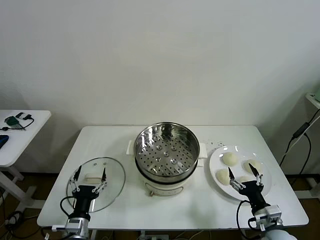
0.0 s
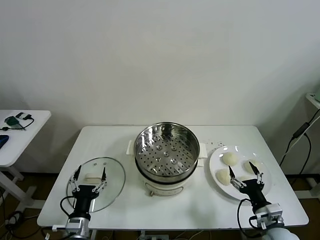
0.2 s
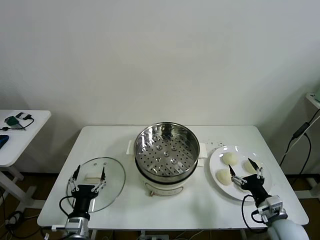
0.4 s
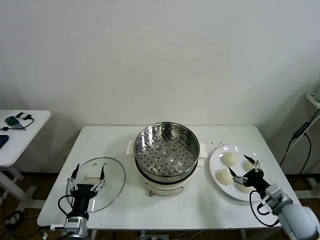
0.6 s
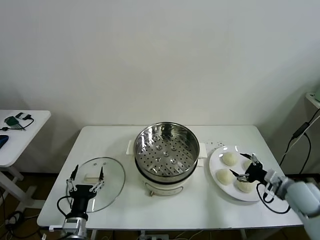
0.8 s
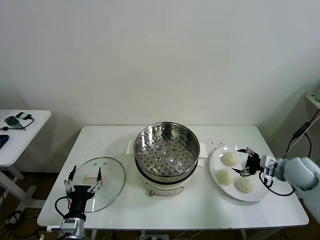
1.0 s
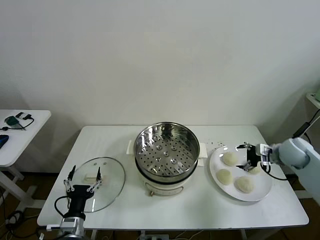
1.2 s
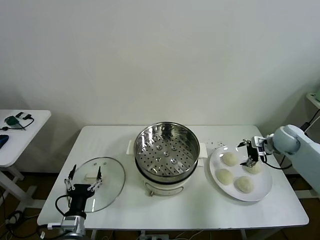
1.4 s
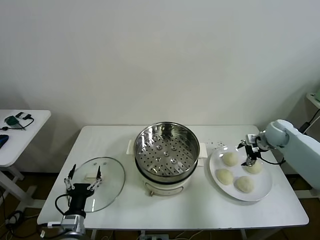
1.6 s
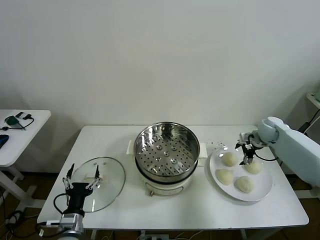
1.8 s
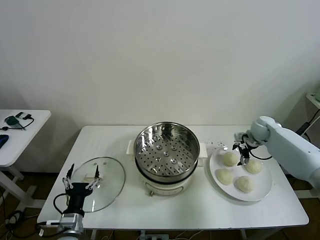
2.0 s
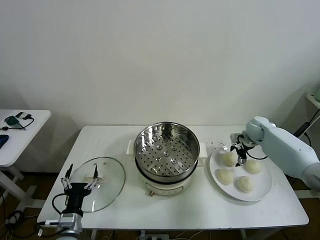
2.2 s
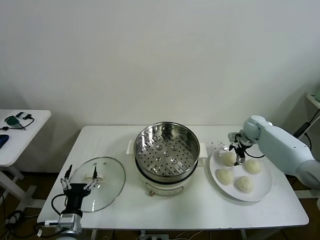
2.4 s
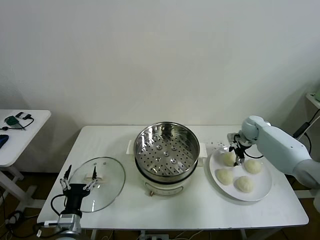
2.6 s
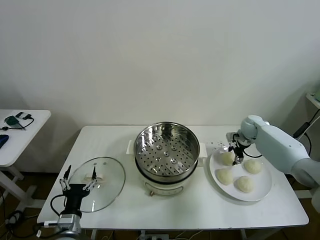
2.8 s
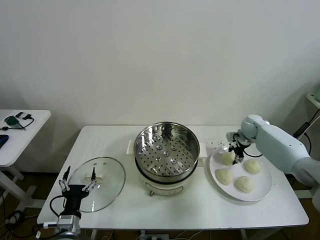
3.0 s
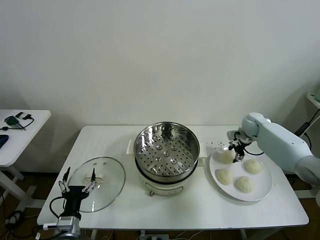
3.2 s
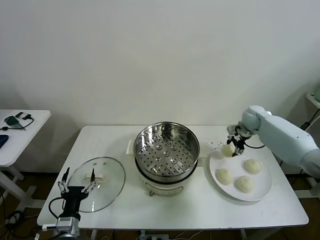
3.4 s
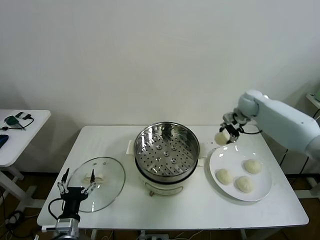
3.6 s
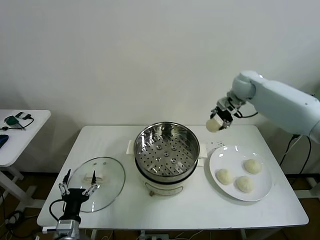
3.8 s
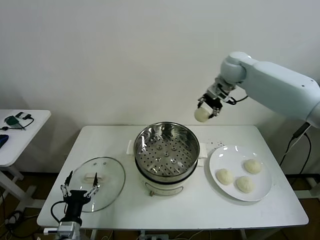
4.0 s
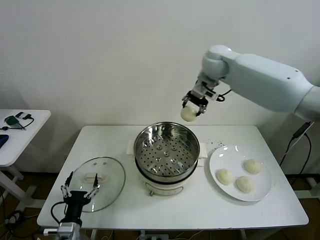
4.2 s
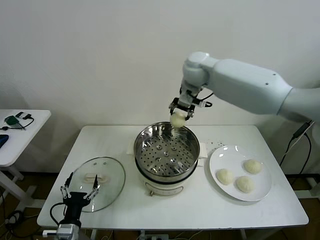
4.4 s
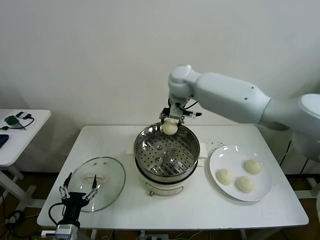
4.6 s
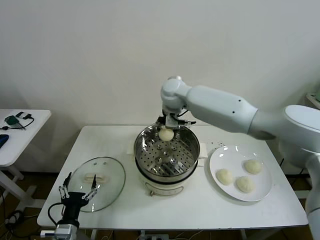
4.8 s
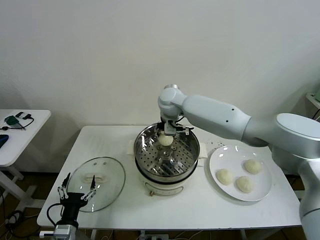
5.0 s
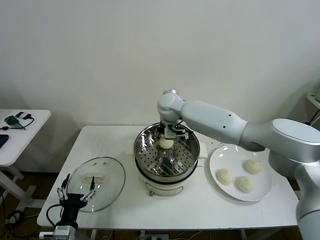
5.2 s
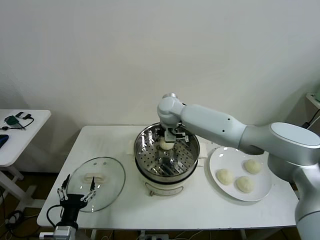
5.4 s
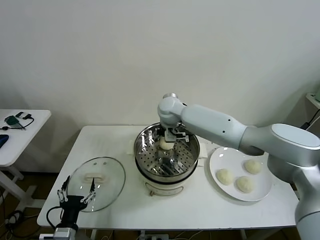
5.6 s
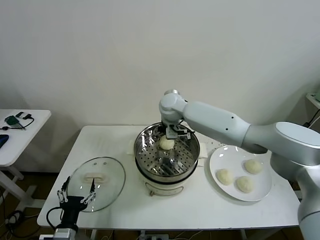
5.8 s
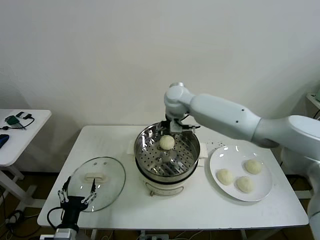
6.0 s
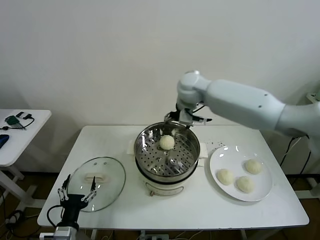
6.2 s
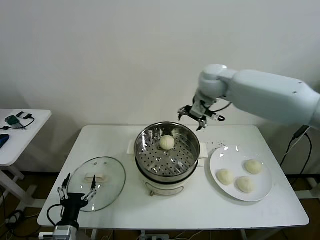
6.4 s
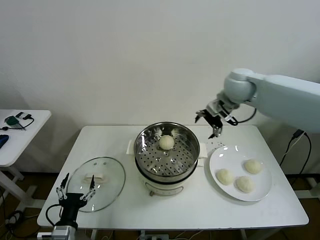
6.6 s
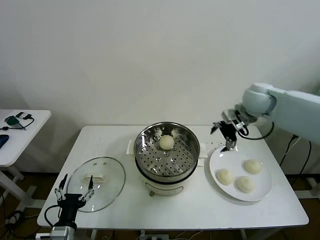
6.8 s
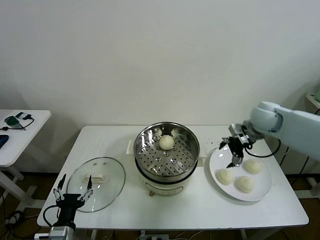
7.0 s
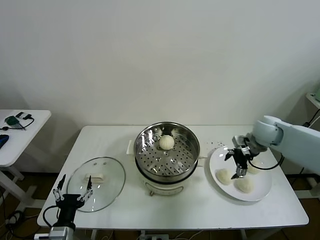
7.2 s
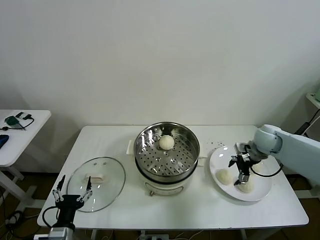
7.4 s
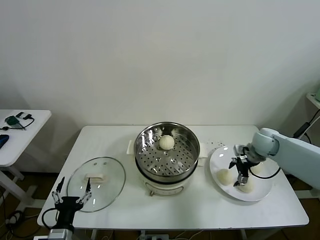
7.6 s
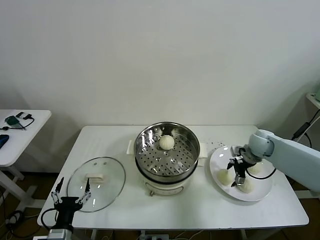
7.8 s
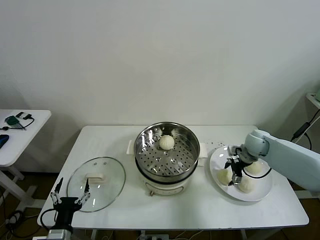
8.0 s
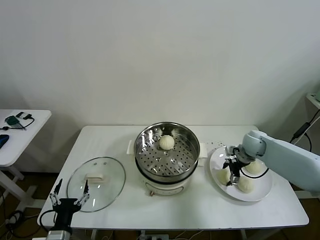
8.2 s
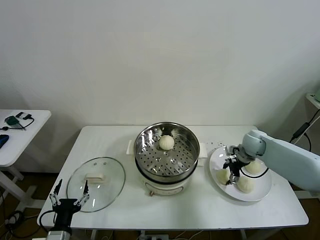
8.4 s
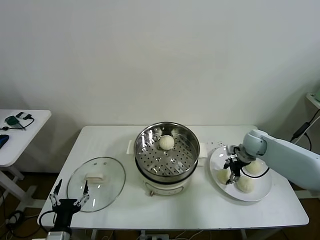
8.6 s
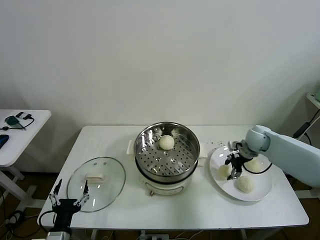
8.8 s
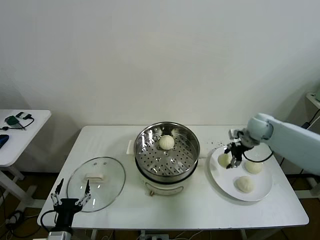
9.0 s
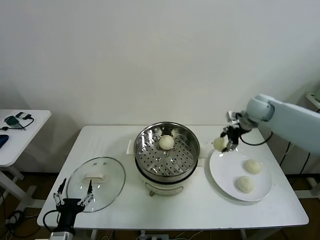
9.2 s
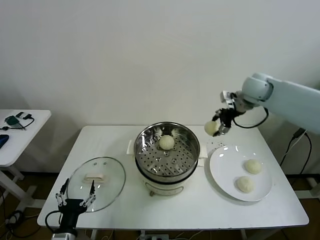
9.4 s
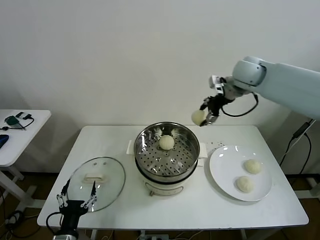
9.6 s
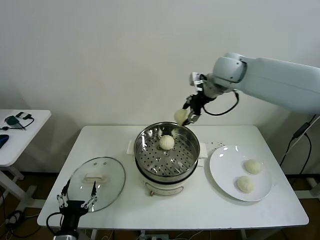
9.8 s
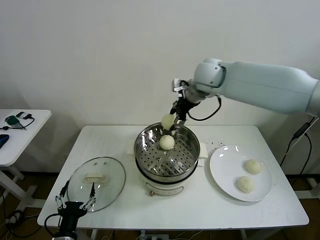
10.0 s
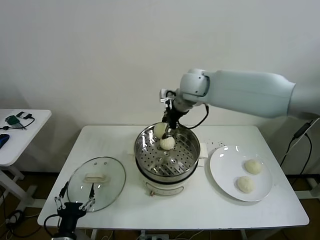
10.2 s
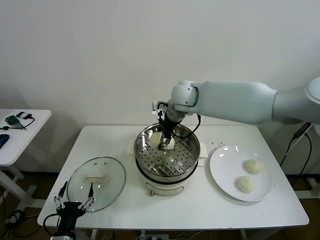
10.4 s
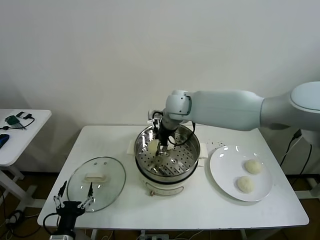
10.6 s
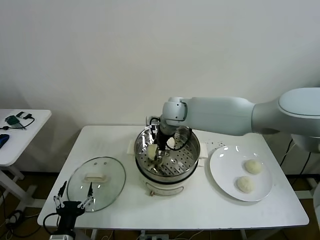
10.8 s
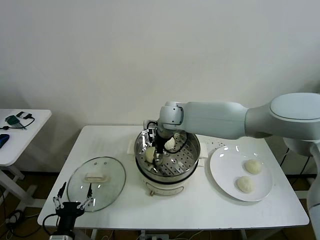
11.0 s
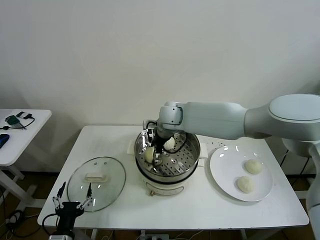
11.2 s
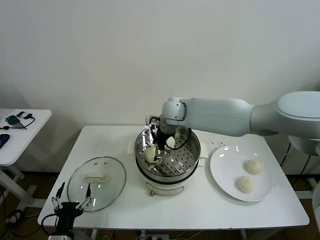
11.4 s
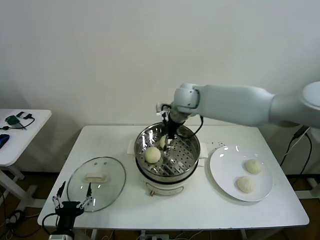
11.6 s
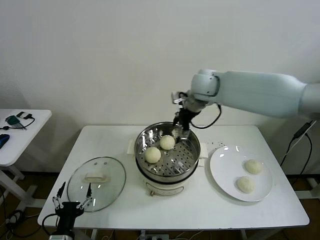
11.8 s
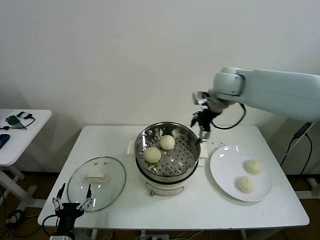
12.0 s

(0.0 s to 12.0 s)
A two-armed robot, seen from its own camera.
Task of the whole recording: take steamed baozi put them in steamer then cover it.
Step, 0.0 s - 2.8 s: Grasp the baozi in the plate with right gripper.
Step, 3.0 s - 5.4 s: Place the baozi on the steamer with right gripper.
Step, 5.6 s - 8.4 s: Grasp the baozi in the plate with right gripper.
Step, 8.6 s - 11.2 s: Place the baozi on the steamer with right gripper.
1.6 s - 3.0 s: The right gripper is displaced forward by approximately 5 cm, and closes.
3.0 s - 4.4 s: The right gripper moves to the left and upward, some 40 cm.
4.4 s - 6.0 s: The right gripper travels downward by roughly 5 cm, and opens its fingers.
6.0 s - 7.6 s: The right gripper travels to the right and downward by some 35 cm.
7.6 s - 9.0 s: The right gripper shifts roughly 5 cm upward, and closes up.
9.0 s - 10.4 s: The right gripper shifts roughly 30 cm to the left.
10.4 s - 12.0 s: The right gripper moves to the right, roughly 15 cm, and opens its fingers.

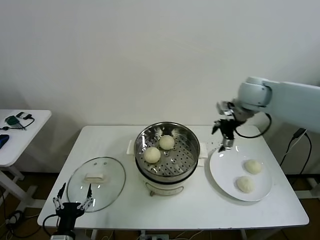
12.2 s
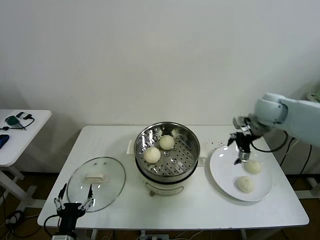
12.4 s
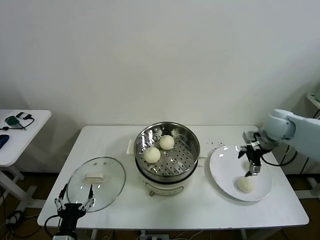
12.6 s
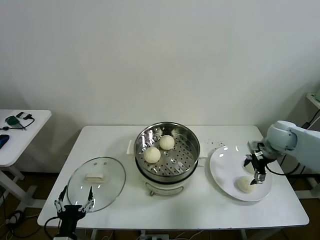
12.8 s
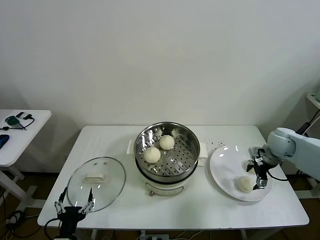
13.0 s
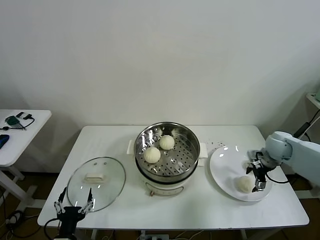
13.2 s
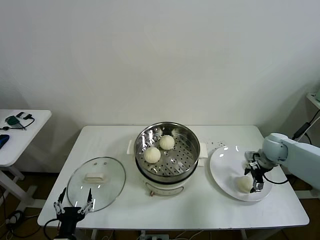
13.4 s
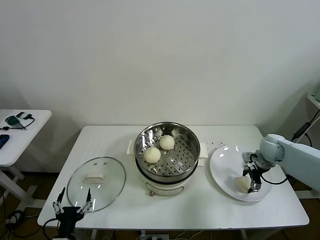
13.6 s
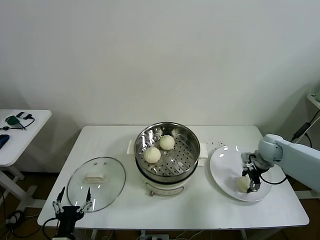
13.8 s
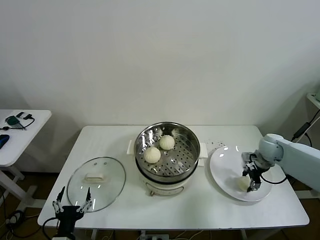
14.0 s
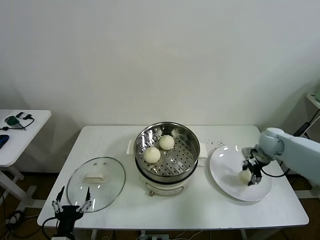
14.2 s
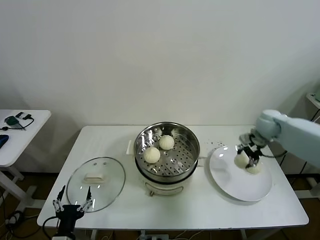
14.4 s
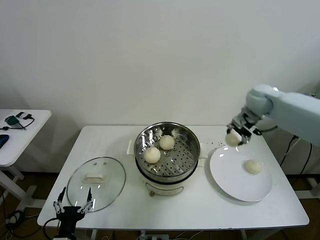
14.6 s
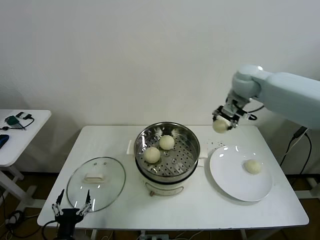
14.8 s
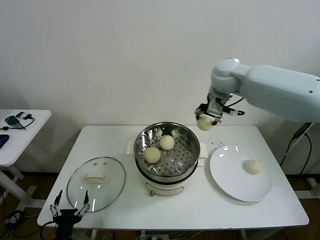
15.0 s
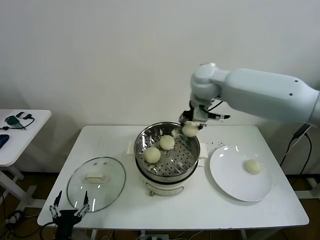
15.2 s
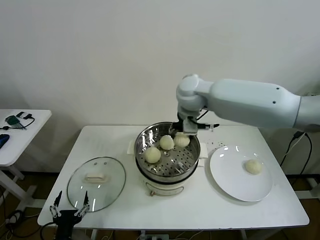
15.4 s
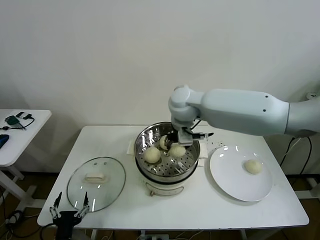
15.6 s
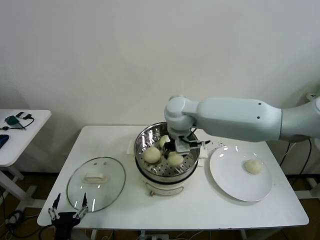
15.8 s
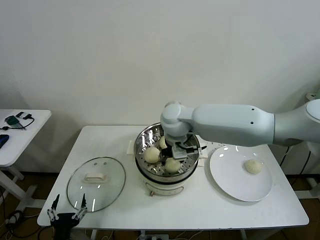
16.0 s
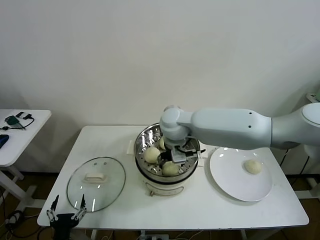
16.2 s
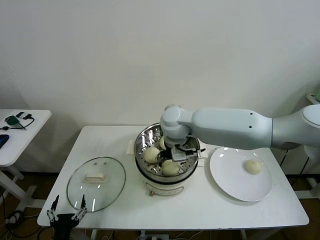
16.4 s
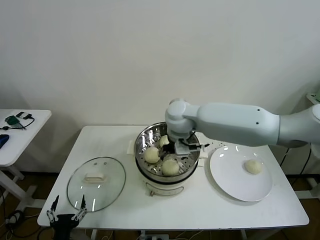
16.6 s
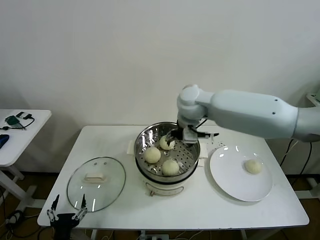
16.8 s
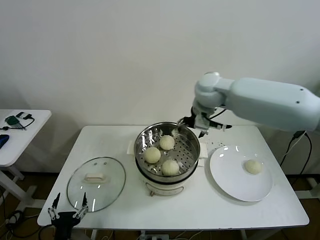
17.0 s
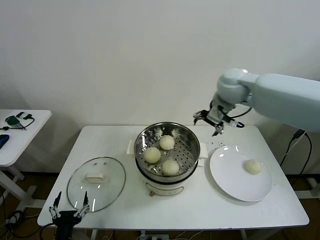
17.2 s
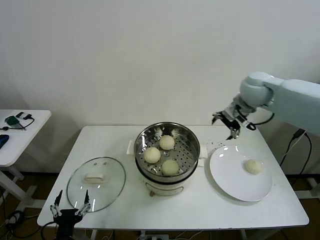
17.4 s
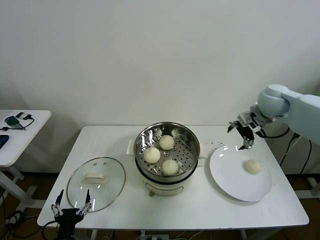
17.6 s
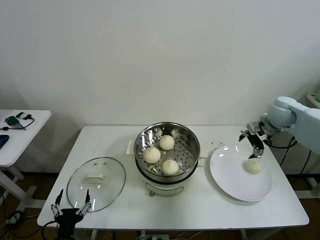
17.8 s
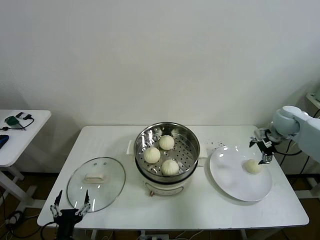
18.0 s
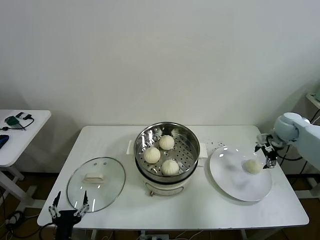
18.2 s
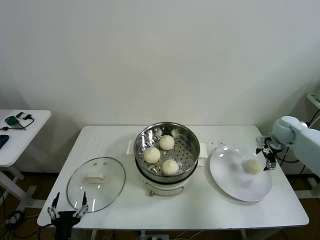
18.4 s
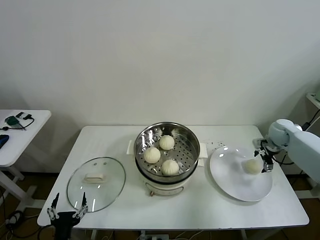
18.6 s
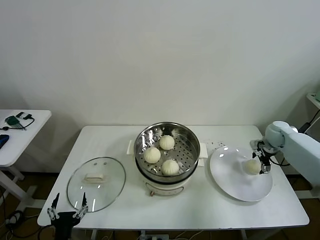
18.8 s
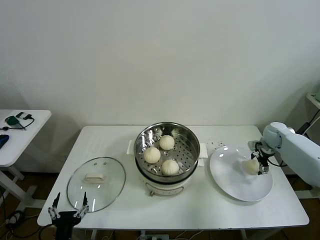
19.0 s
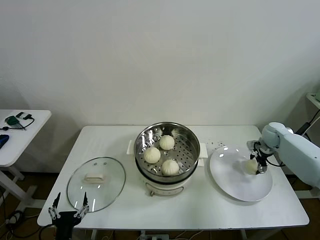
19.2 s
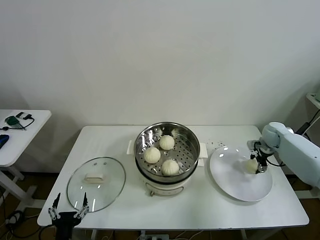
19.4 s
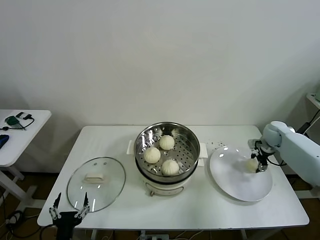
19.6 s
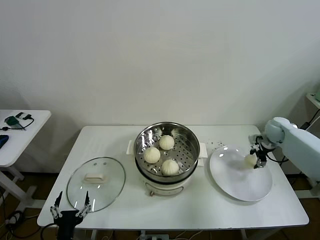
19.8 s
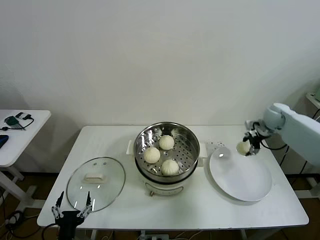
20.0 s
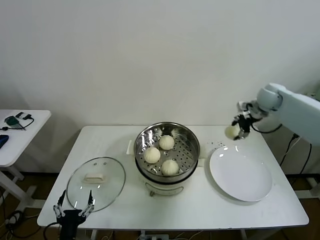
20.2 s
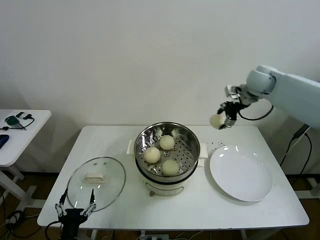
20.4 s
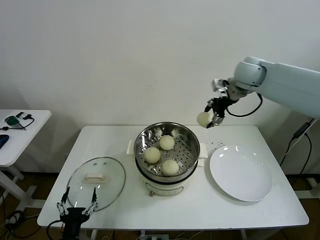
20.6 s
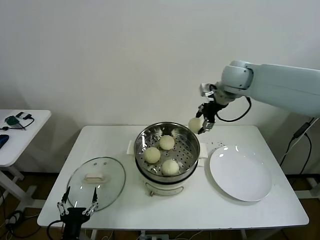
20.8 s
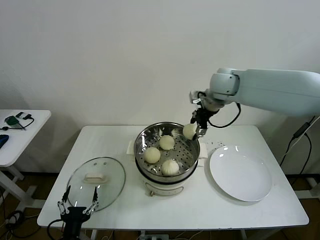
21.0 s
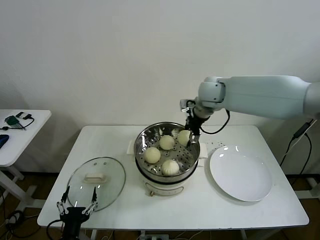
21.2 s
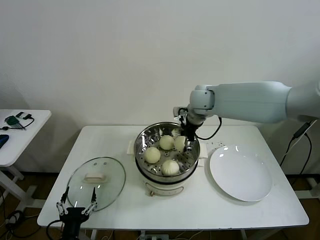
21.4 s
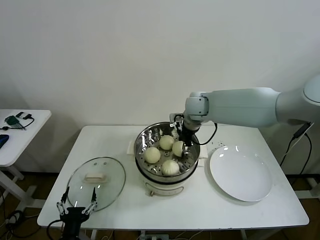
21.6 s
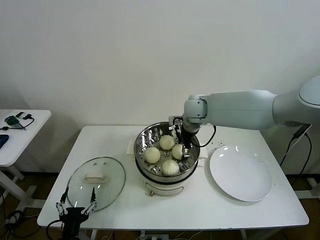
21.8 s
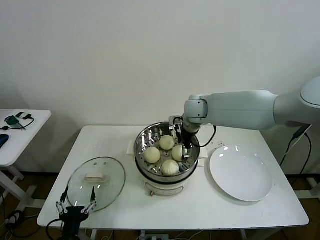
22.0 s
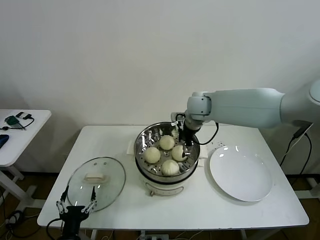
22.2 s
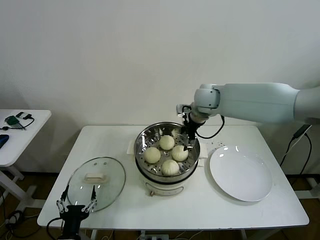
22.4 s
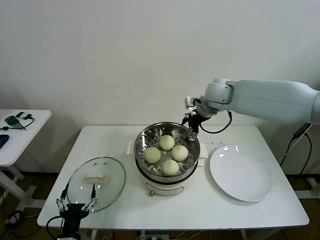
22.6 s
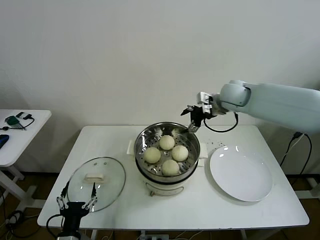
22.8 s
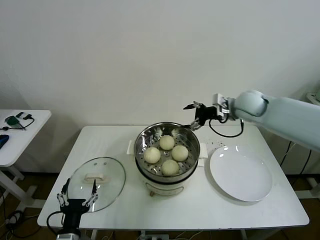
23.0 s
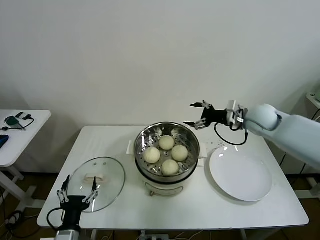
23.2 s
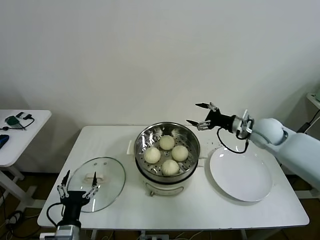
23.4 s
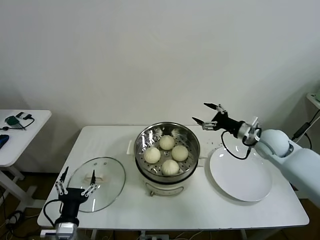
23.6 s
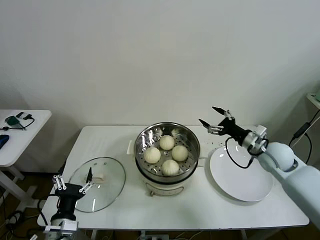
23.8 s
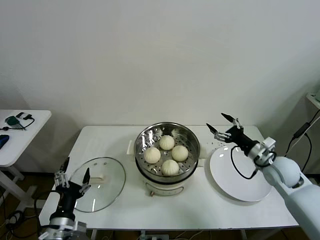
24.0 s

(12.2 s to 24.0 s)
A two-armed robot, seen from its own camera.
Task of the whole recording: take steamed baozi put them in steamer then cover it.
Step, 12.2 s - 14.0 s: Grasp the baozi in the plate with right gripper.
Step, 14.2 s - 16.2 s: Place the baozi on the steamer with right gripper.
Step, 16.4 s - 19.4 s: Grasp the baozi in the plate with right gripper.
Step, 19.6 s - 22.0 s: Place the baozi on the steamer with right gripper.
12.2 s - 13.6 s: The right gripper shifts about 25 cm downward and to the right.
13.6 s - 15.2 s: The right gripper is displaced to the left and upward by roughly 40 cm, and closes.
15.2 s - 16.6 s: The right gripper shifts some 10 cm downward and to the left, and opens up.
16.6 s - 18.2 s: The right gripper moves to the right, about 40 cm.
18.2 s - 19.6 s: The right gripper moves downward, approximately 5 cm, and closes its fingers.
19.6 s - 21.0 s: The right gripper goes roughly 35 cm to the left and upward.
21.0 s - 22.6 s: The right gripper opens up.
22.6 s - 24.0 s: The right gripper is displaced to the right, downward and backward by approximately 30 cm. The left gripper shifts by roughly 5 cm.
